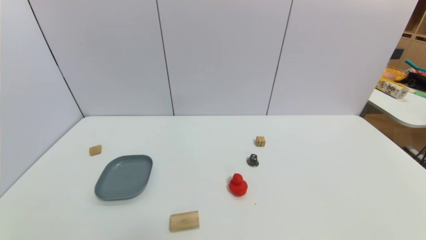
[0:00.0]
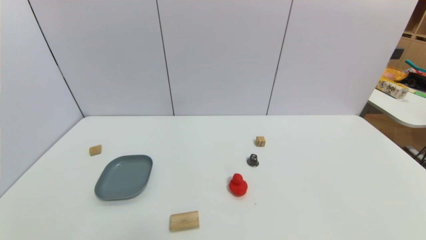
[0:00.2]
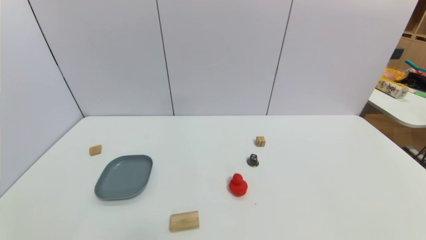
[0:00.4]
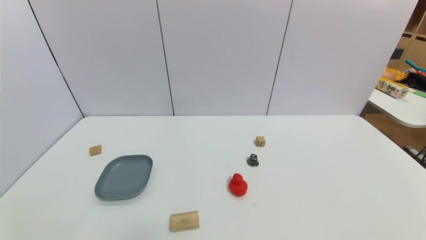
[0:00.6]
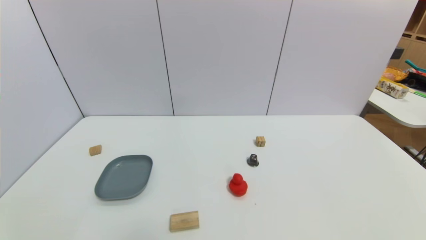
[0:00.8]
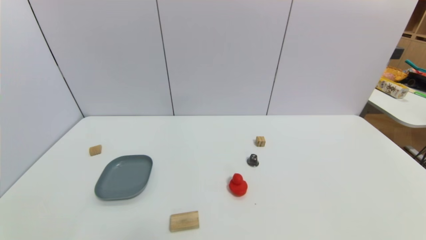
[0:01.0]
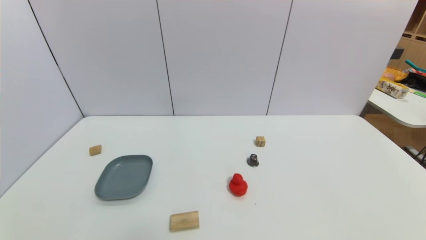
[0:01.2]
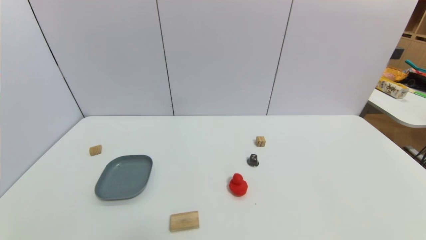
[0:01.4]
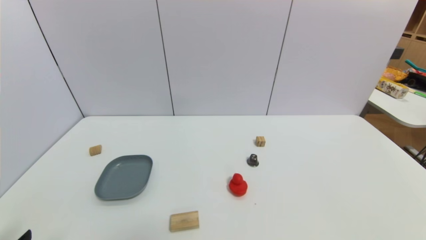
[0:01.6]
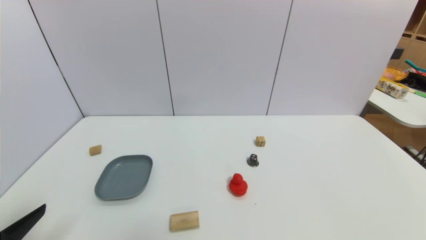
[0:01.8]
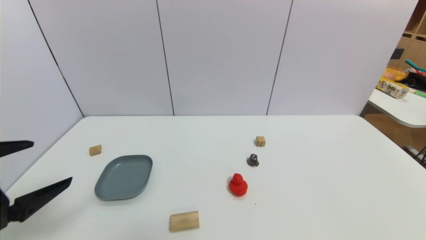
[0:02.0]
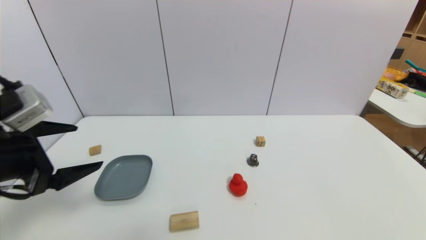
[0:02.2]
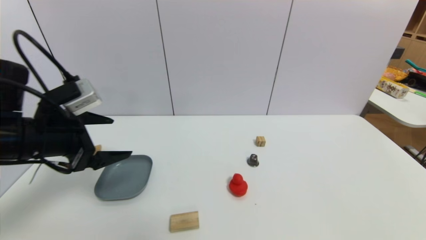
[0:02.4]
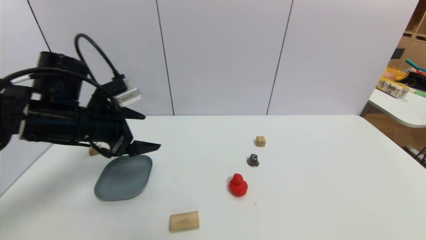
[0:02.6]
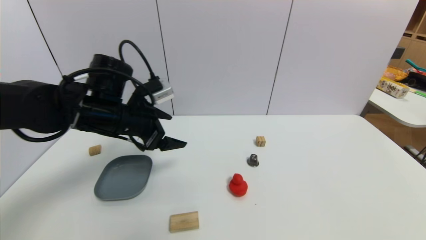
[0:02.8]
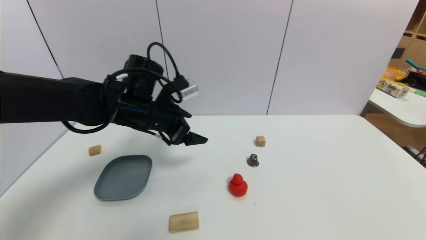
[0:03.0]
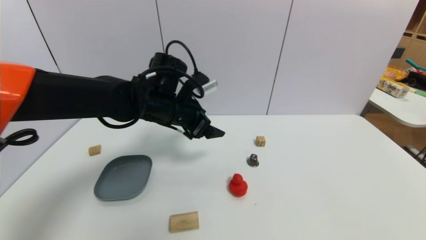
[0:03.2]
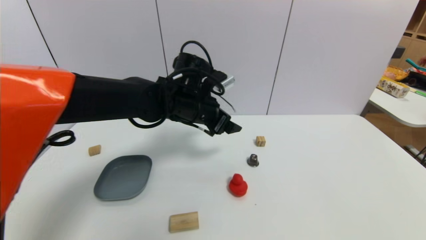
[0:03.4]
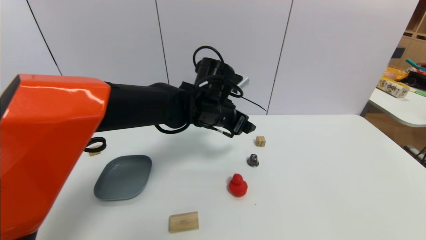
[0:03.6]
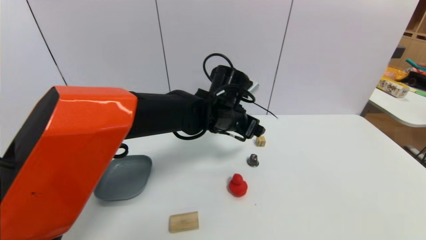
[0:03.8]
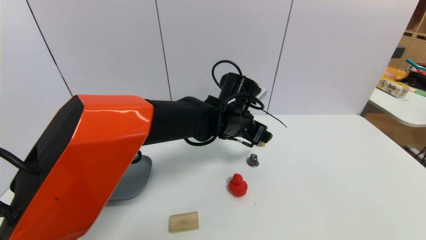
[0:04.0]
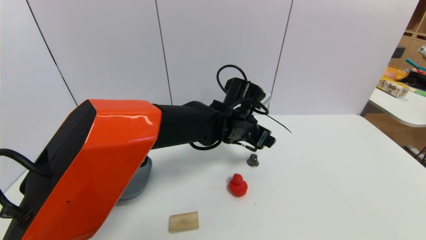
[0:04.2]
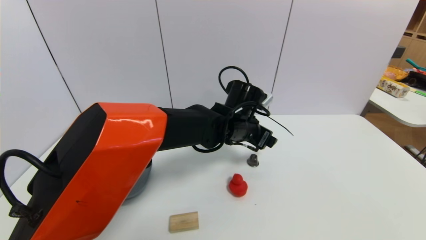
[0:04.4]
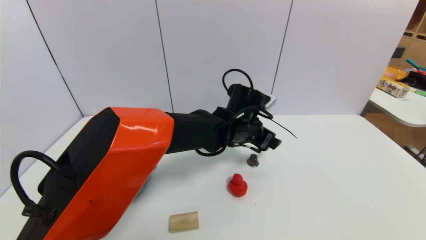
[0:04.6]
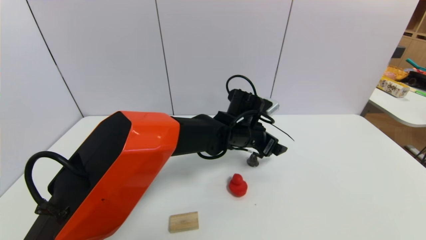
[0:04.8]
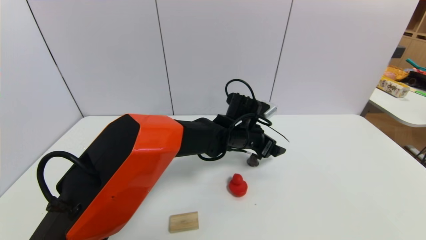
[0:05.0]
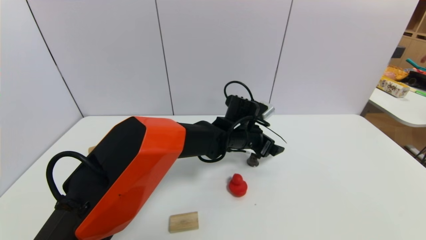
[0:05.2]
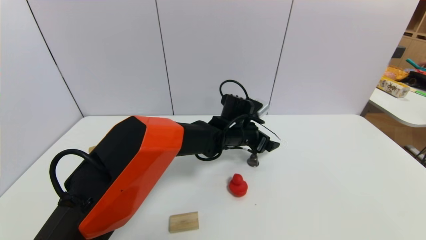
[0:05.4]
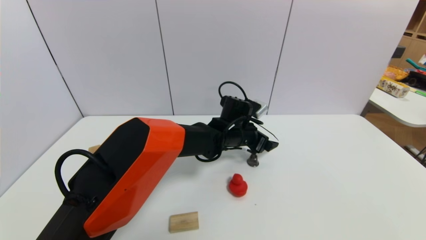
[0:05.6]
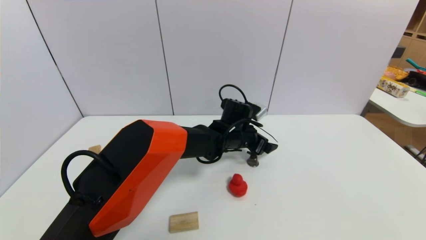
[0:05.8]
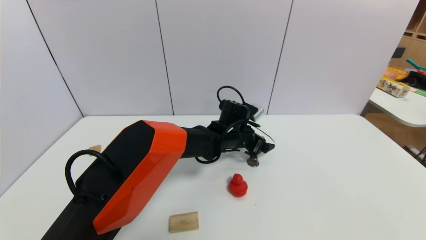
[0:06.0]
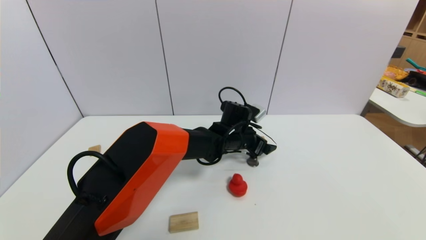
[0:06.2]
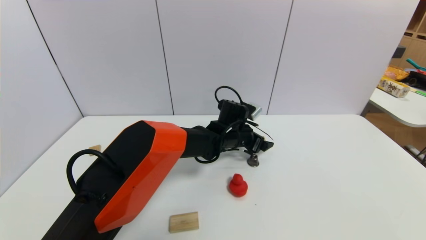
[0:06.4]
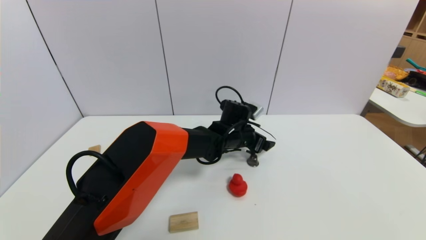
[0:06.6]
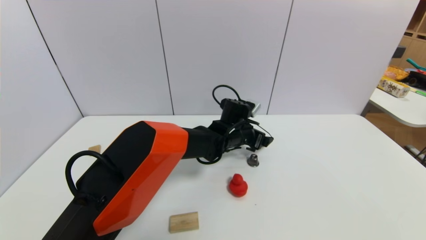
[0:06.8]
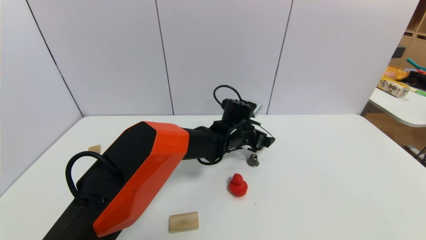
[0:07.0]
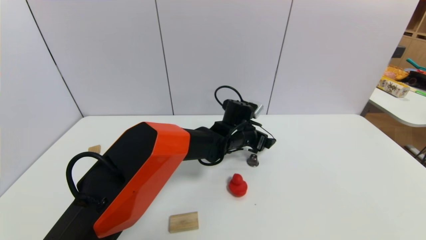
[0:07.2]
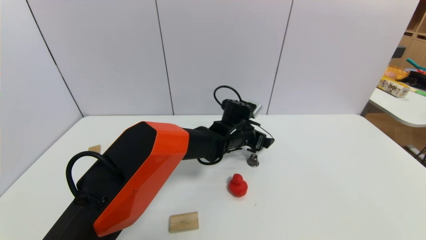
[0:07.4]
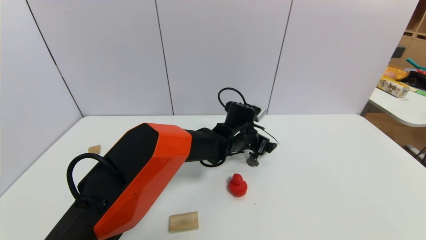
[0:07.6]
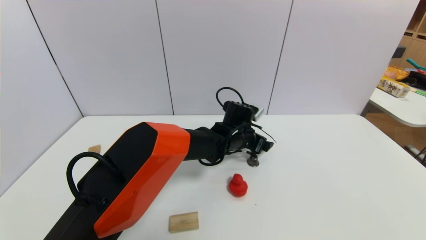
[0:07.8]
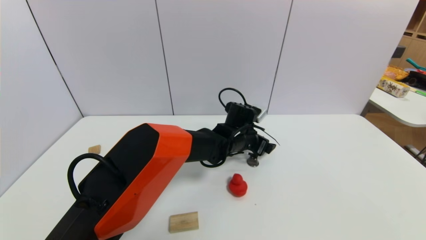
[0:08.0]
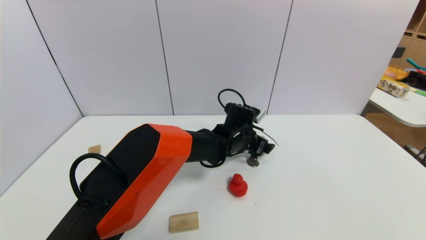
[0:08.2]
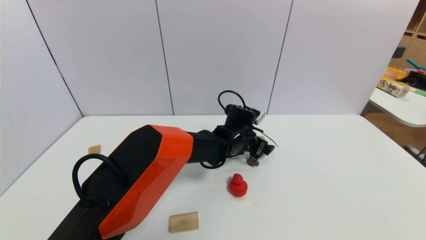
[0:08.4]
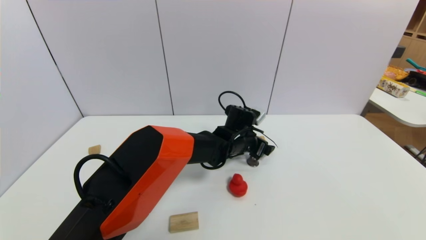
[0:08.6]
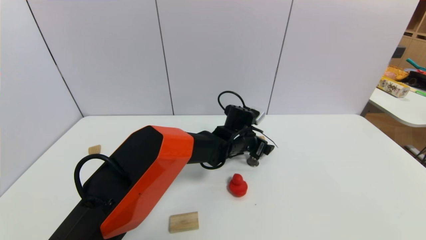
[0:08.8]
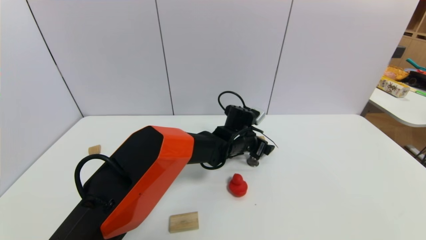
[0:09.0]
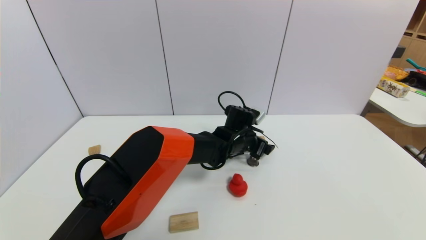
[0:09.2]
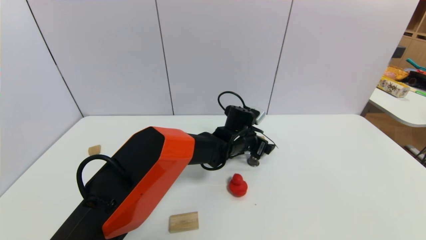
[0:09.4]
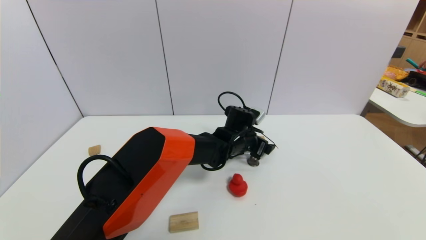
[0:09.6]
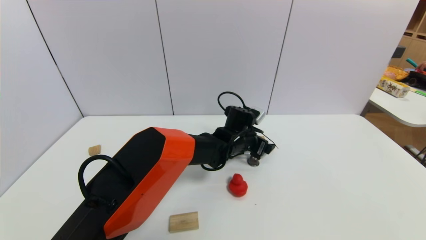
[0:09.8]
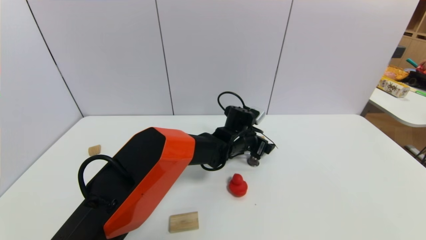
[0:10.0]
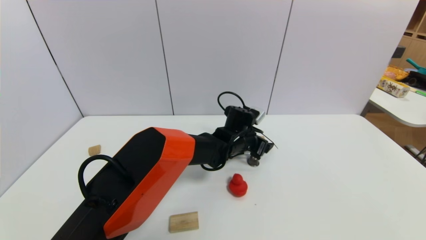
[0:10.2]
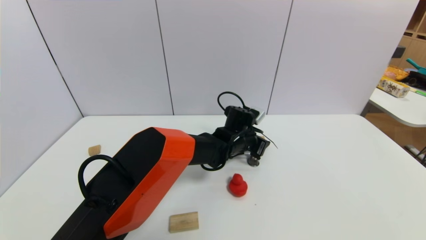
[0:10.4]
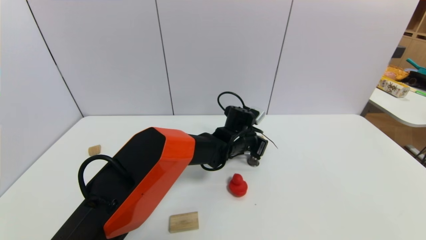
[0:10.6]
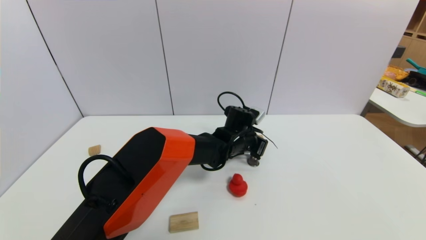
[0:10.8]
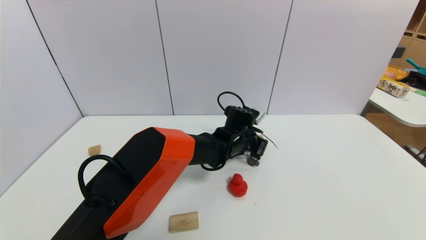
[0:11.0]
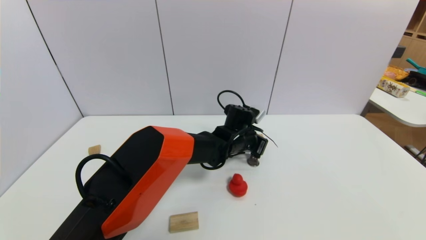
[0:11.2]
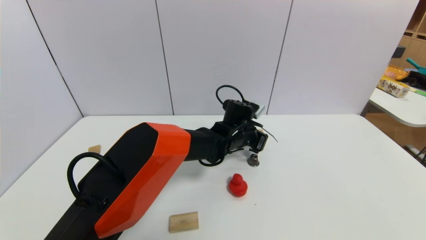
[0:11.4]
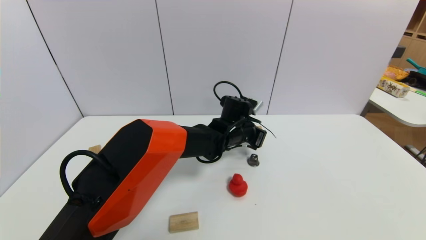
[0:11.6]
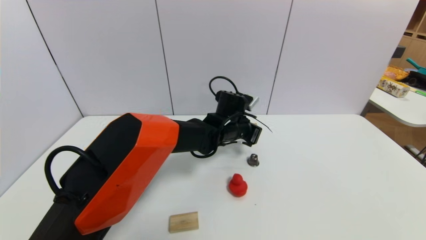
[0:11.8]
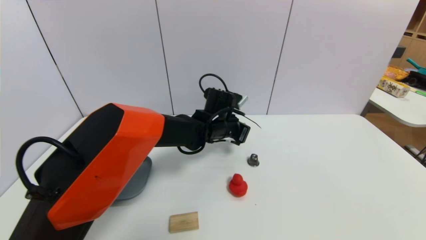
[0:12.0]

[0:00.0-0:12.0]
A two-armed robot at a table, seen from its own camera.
Task of the whole recording: use a gripper to pick the target object and place on the dish.
Step, 0:00.0 to 0:10.6: Grasp the square wooden block with the left gripper.
0:01.6 to 0:03.0: The left gripper travels forward and to the right by roughly 35 cm.
0:03.0 to 0:04.4: The left gripper shifts about 20 cm to the right.
0:04.4 to 0:06.0: The left gripper heads downward and forward, covering some 10 cm.
0:06.0 to 0:07.6: The grippers stay close to where they were, moving slightly.
0:07.6 to 0:09.0: Both grippers stay put.
0:09.0 to 0:10.4: The left gripper closes its fingers.
0:10.4 to 0:12.0: The left gripper travels to the left by about 5 cm, and closes up.

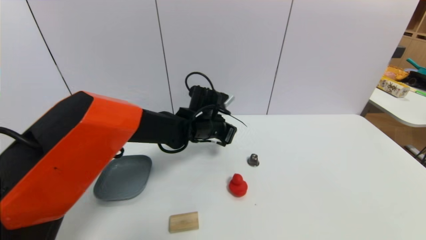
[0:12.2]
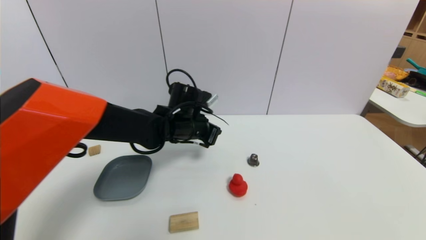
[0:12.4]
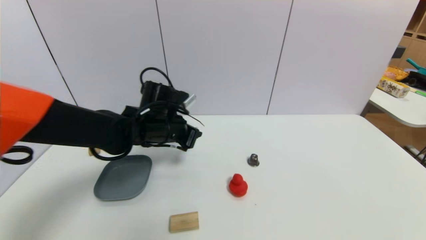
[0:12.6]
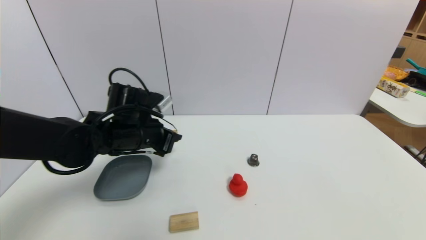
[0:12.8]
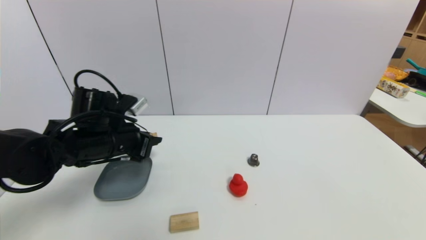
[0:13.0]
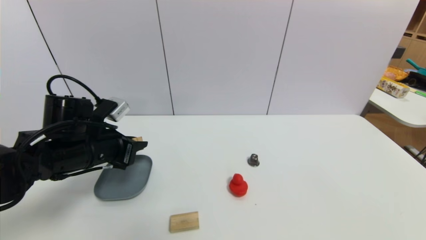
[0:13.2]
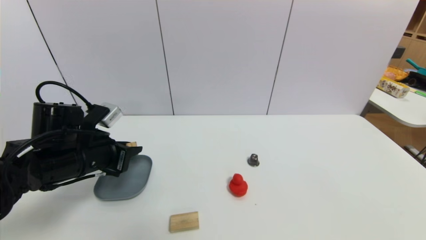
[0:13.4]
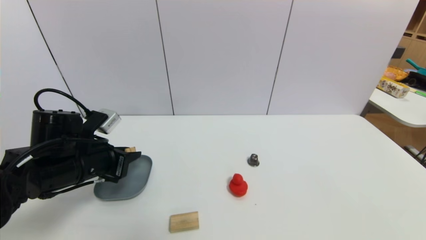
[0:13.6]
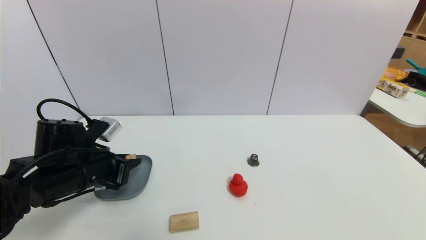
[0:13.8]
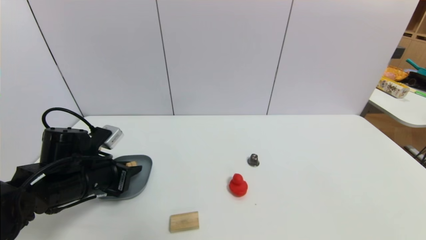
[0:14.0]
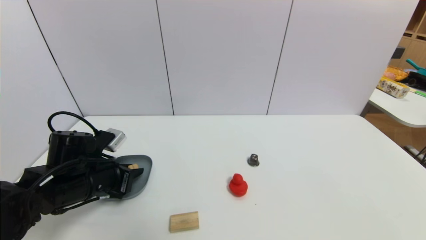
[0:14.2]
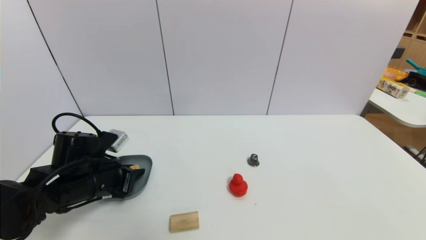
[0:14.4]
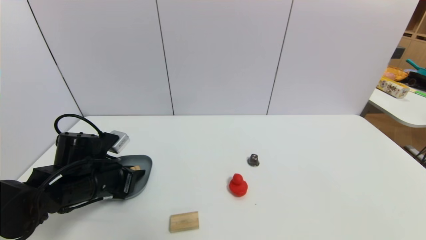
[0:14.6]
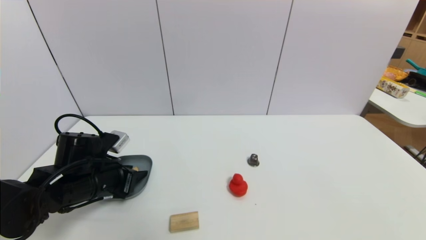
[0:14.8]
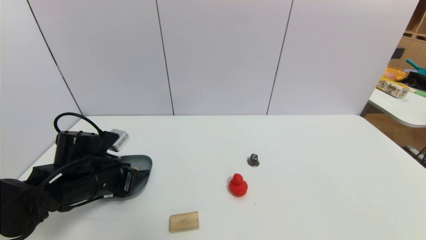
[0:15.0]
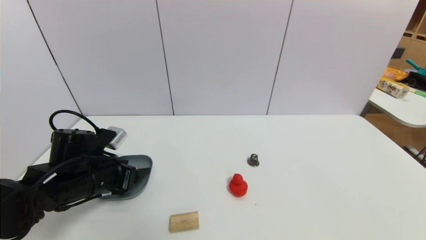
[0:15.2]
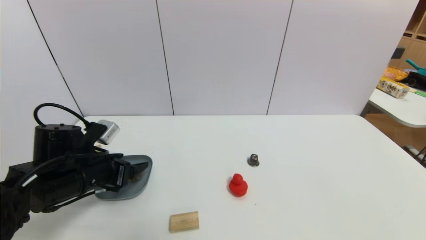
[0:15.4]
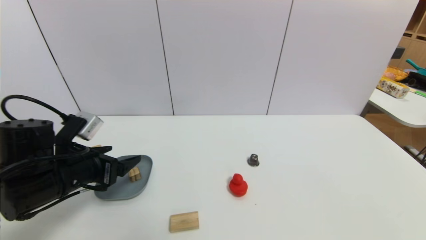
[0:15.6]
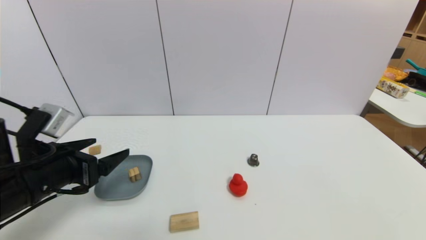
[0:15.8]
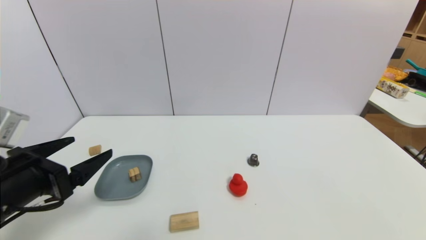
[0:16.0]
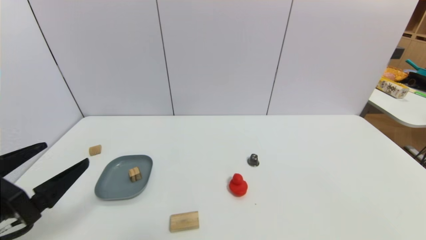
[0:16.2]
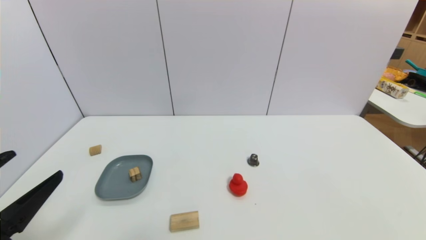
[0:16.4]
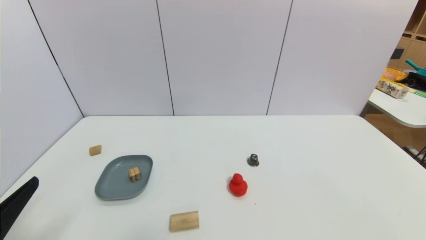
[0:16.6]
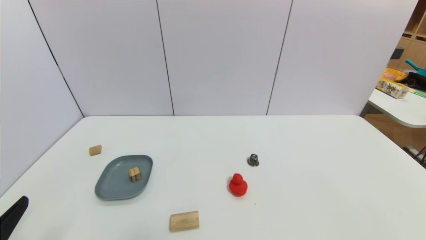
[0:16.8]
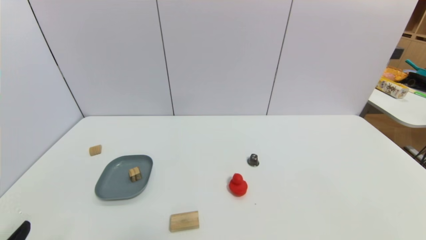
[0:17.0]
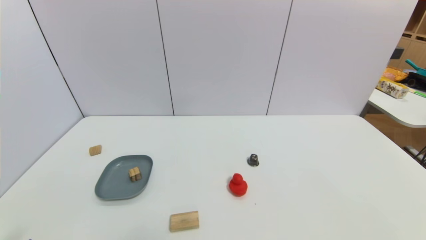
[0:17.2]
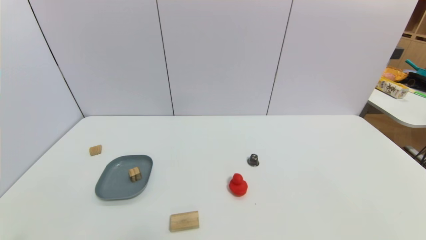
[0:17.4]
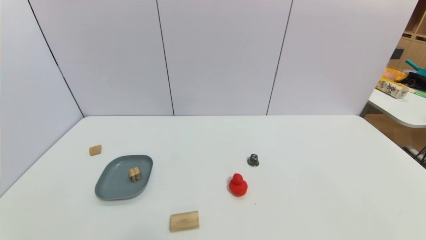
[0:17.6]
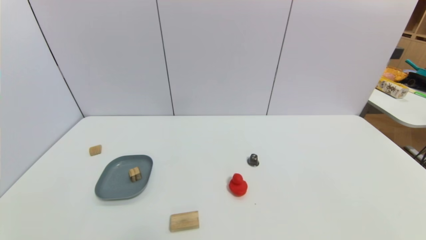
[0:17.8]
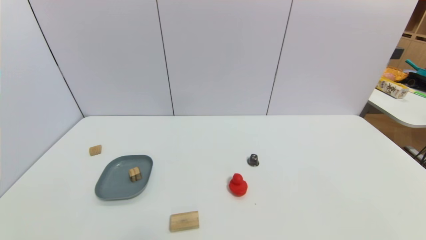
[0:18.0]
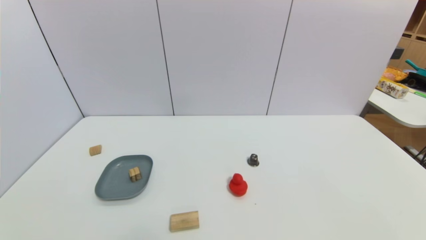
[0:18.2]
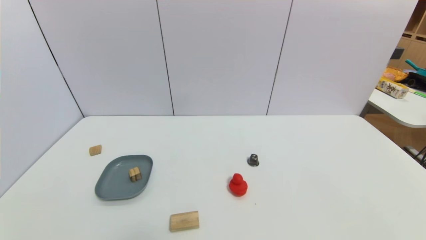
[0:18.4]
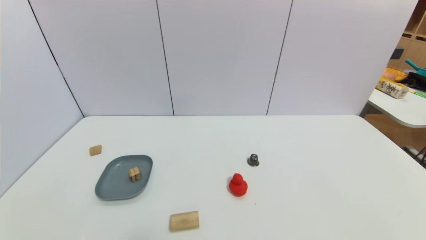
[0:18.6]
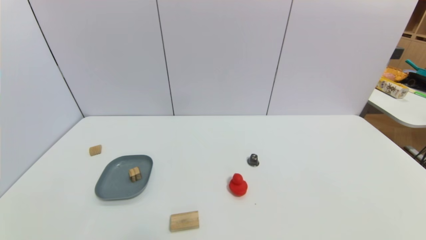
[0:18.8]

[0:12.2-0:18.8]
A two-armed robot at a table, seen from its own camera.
Task of the whole recording: use a gripper to pick the target object and place on the dish.
Step, 0:12.2 to 0:15.8: Place the square wooden block on the dish with the left gripper.
0:12.2 to 0:13.8: The left gripper moves to the left and backward, some 25 cm.
0:13.8 to 0:15.4: The left gripper opens.
0:15.4 to 0:17.2: The left gripper travels backward by some 25 cm.
